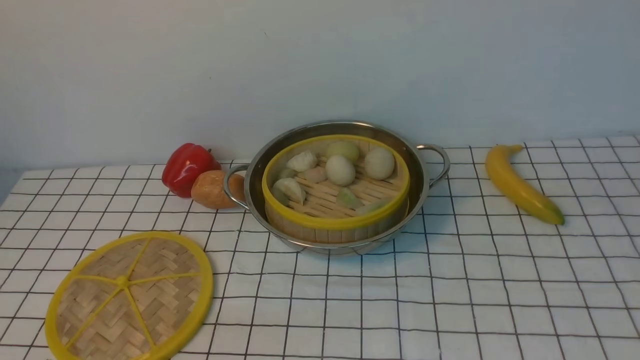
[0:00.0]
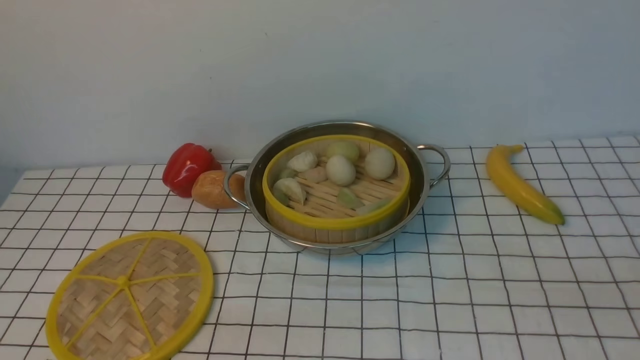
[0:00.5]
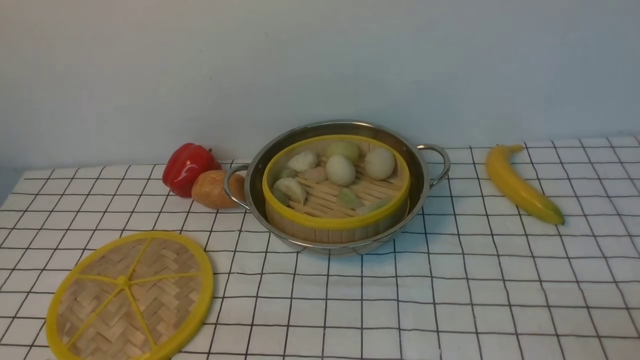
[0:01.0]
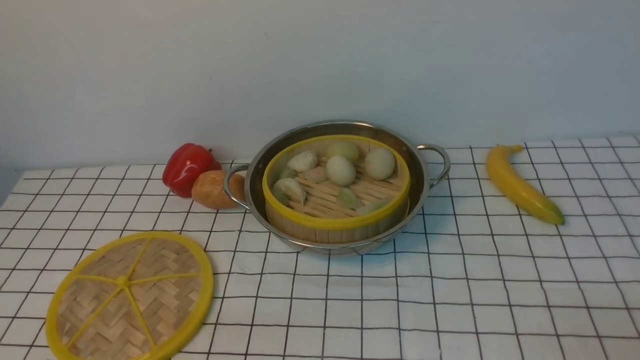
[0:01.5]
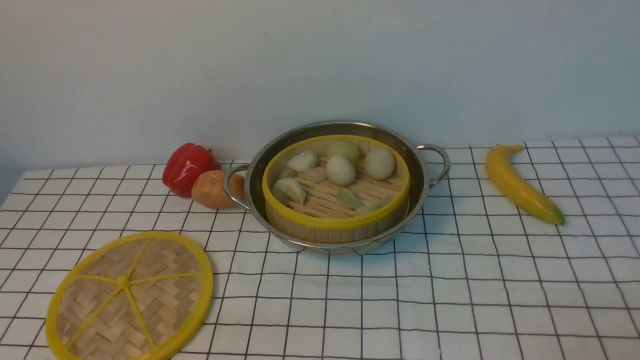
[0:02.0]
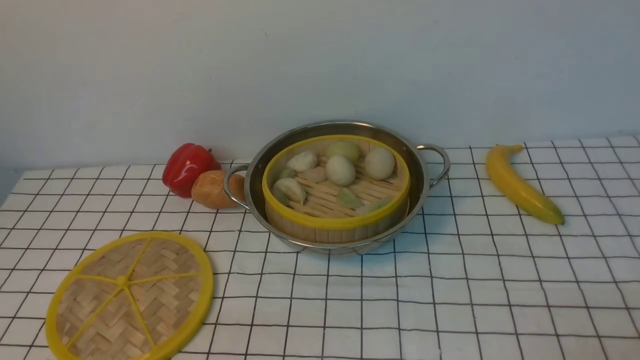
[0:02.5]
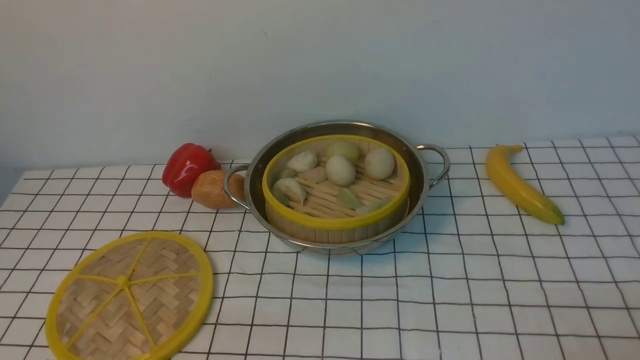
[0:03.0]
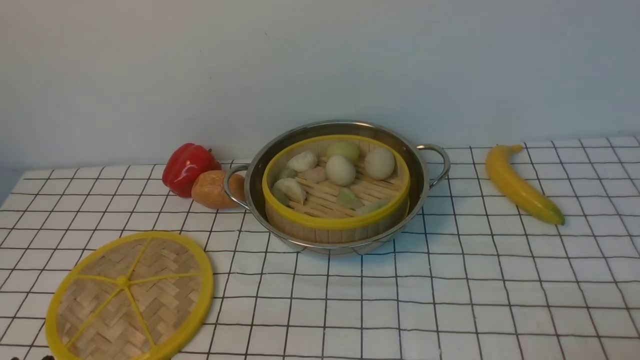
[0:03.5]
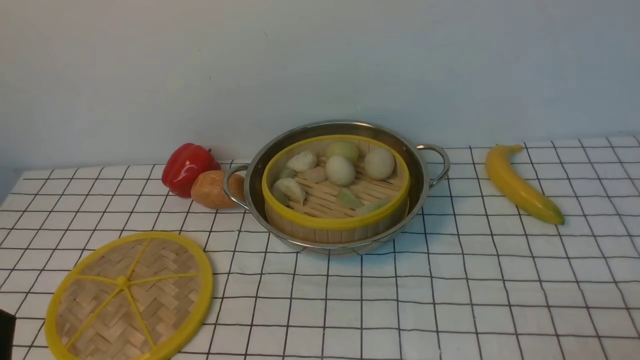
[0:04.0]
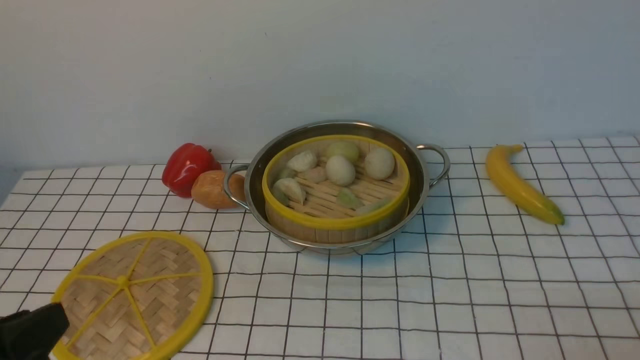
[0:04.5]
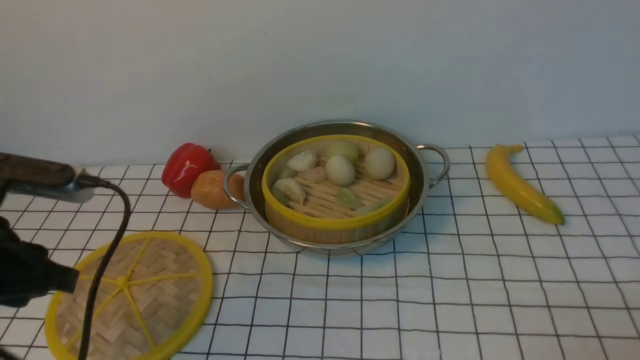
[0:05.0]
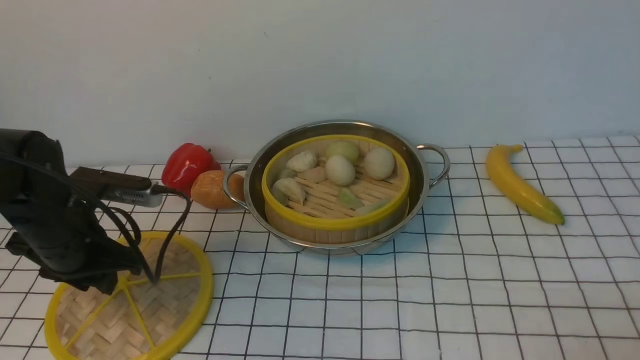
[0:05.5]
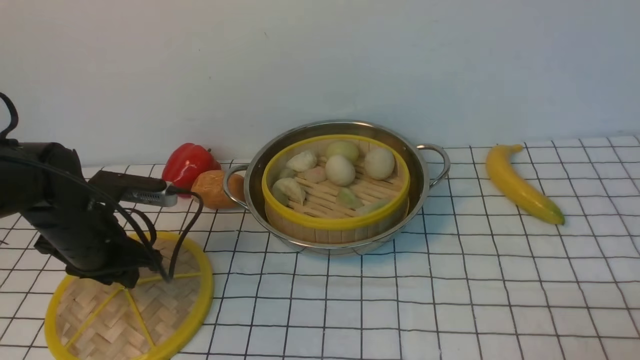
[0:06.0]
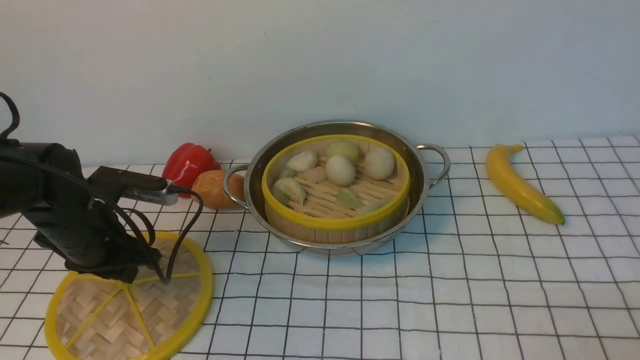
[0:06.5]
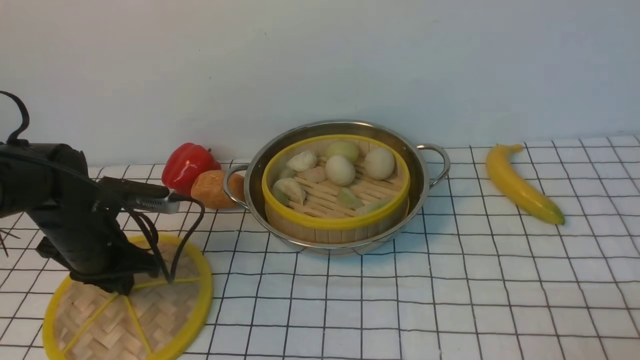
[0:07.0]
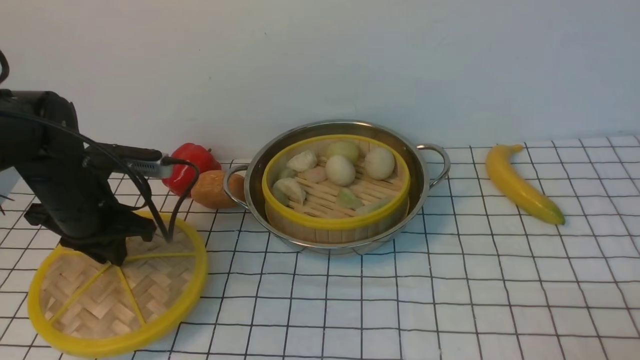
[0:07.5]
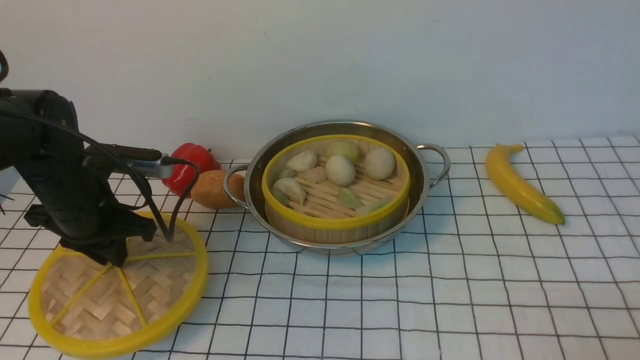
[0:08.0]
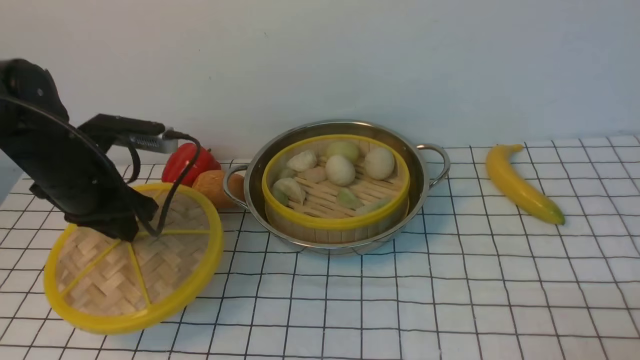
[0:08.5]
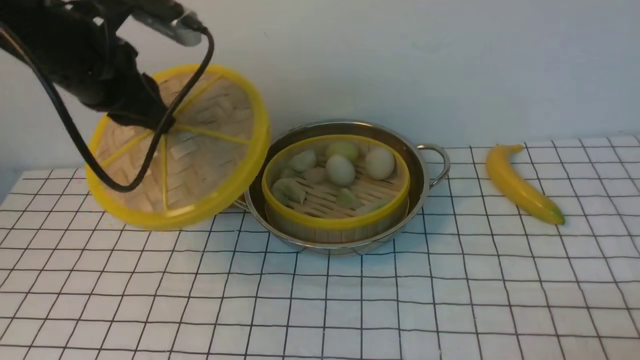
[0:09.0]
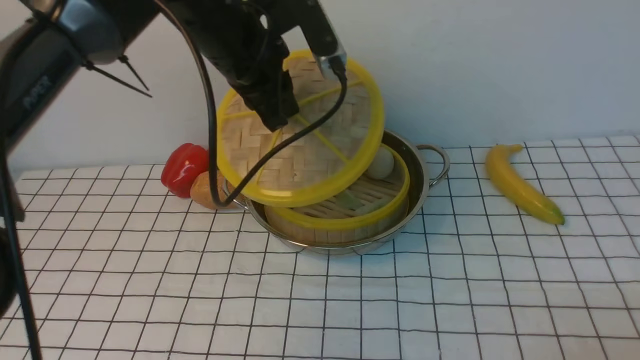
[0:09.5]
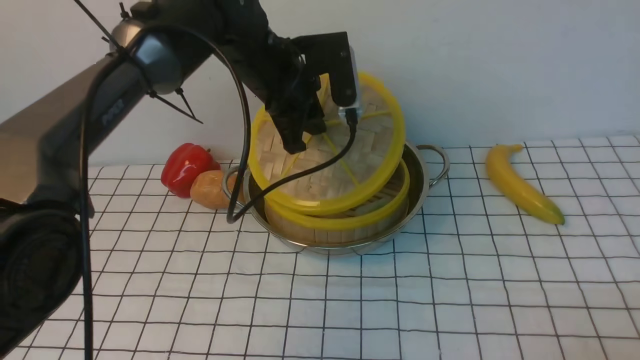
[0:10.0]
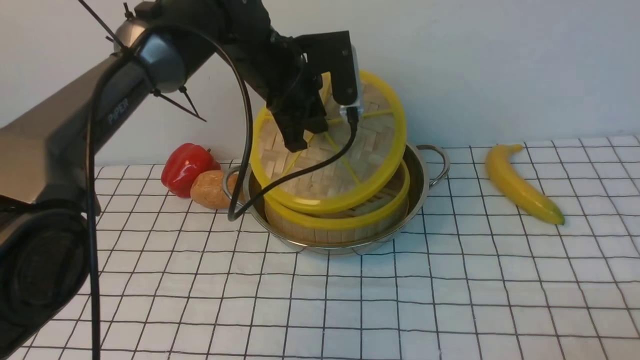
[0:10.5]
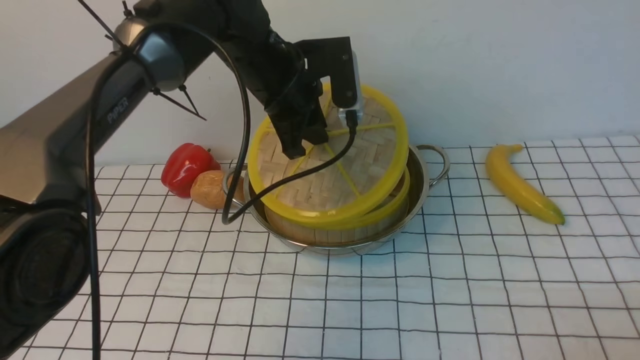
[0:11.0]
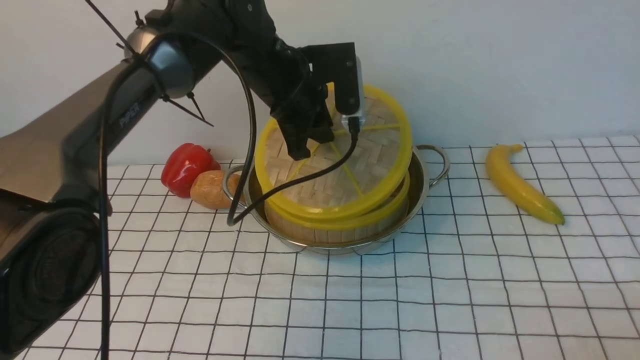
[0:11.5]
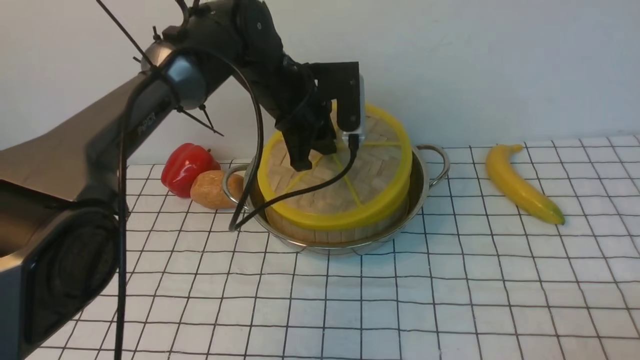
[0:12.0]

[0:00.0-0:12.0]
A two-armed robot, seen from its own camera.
Task of the whole recording: place the steamer in the pot on the white tablecloth, and put the lid on the steamer.
Step, 0:00.0 to 0:07.0: use the left arm to lift the lid of the steamer.
0:04.0 to 0:06.0: The left gripper heads forward, covering some 25 cm.
0:06.0 to 0:08.0: The left gripper closes.
0:08.0 to 0:10.0: The left gripper shifts some 25 cm to the right, forward and upward.
0:10.0 to 0:12.0: The grippers make only small movements.

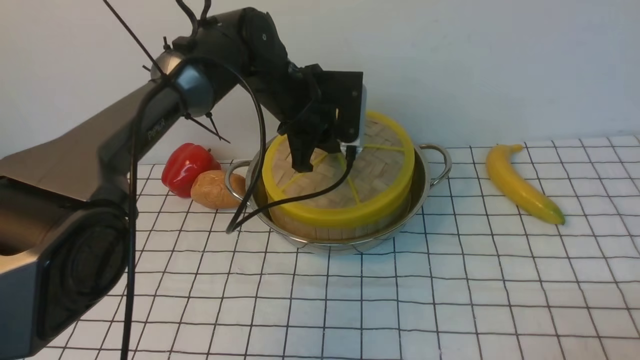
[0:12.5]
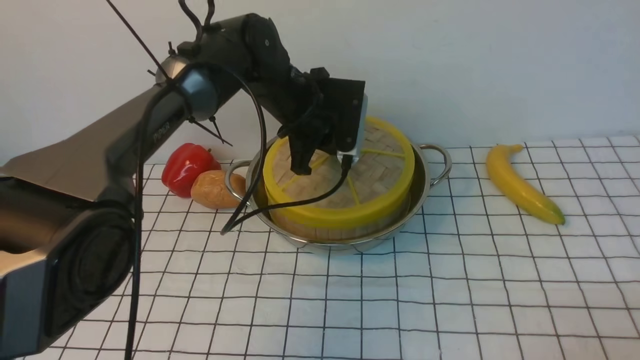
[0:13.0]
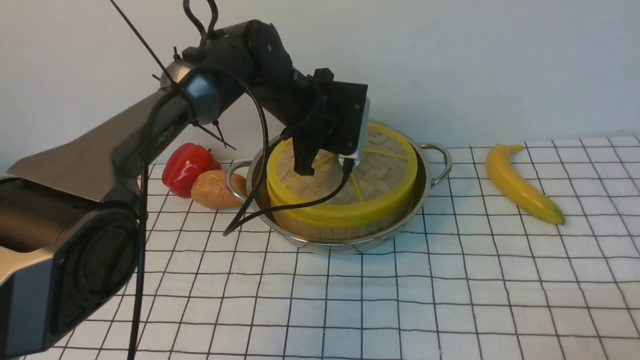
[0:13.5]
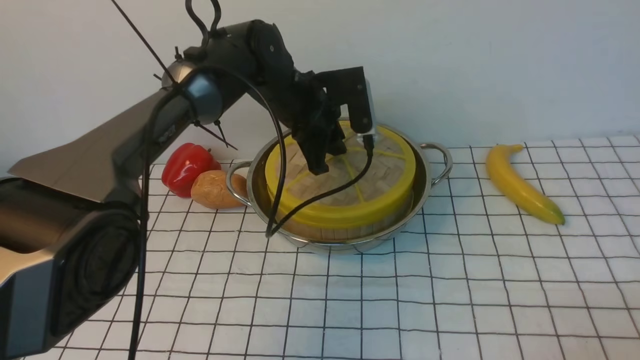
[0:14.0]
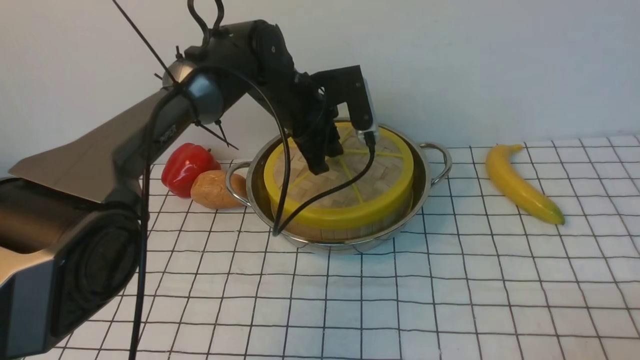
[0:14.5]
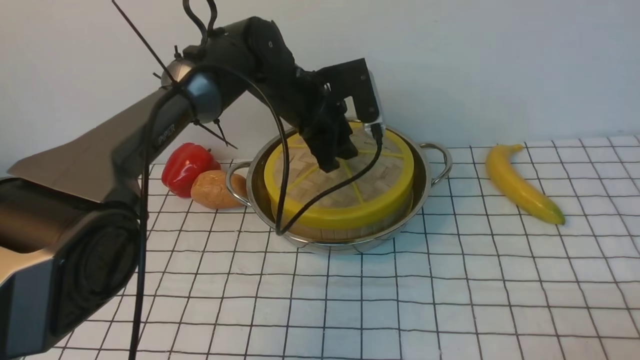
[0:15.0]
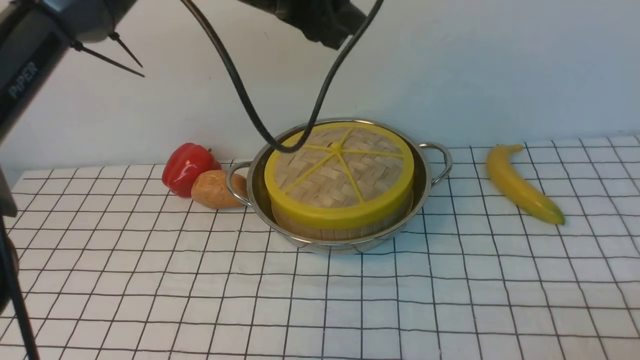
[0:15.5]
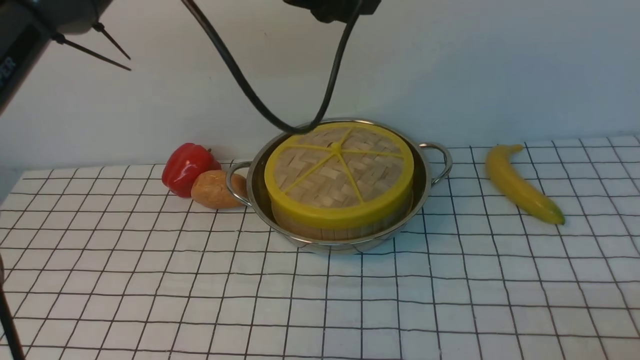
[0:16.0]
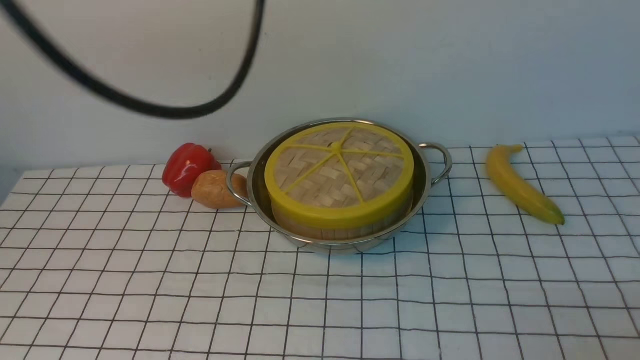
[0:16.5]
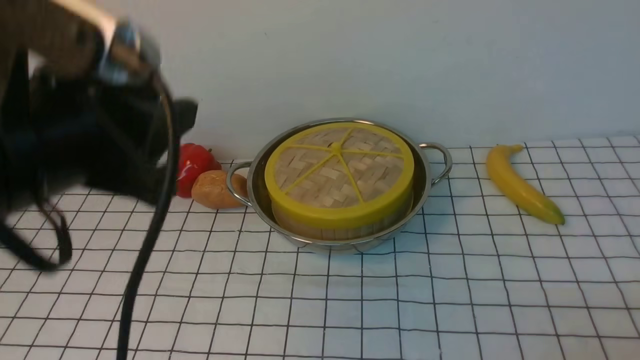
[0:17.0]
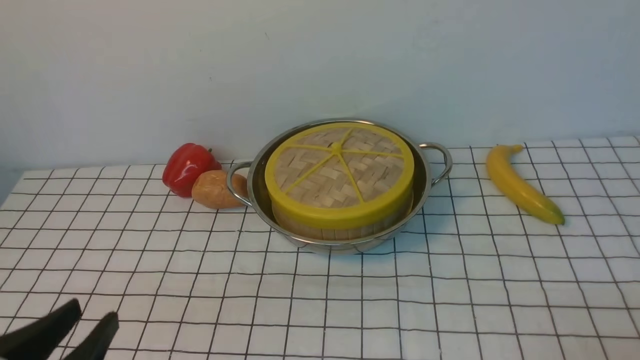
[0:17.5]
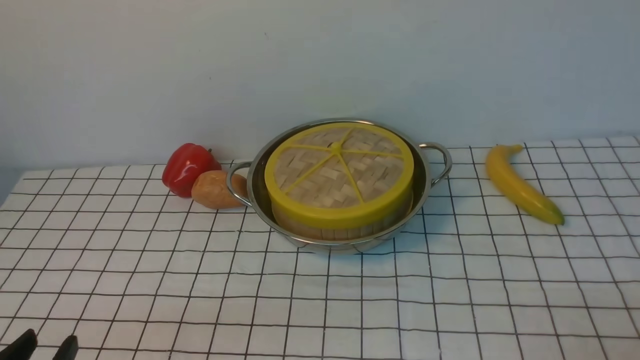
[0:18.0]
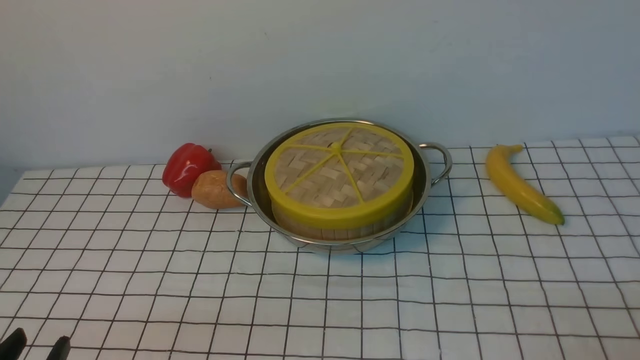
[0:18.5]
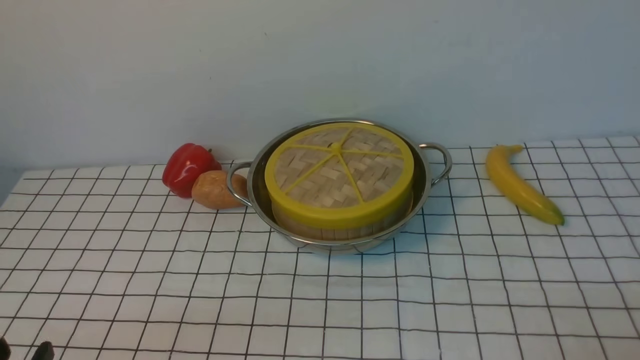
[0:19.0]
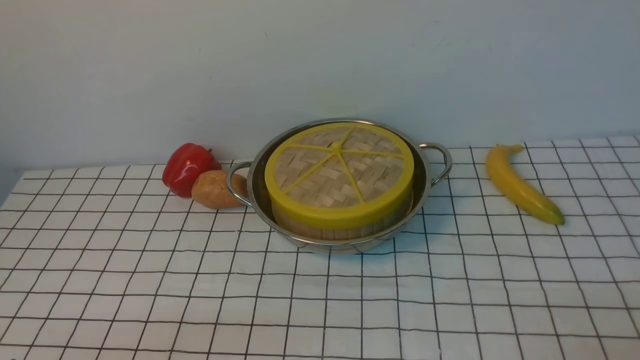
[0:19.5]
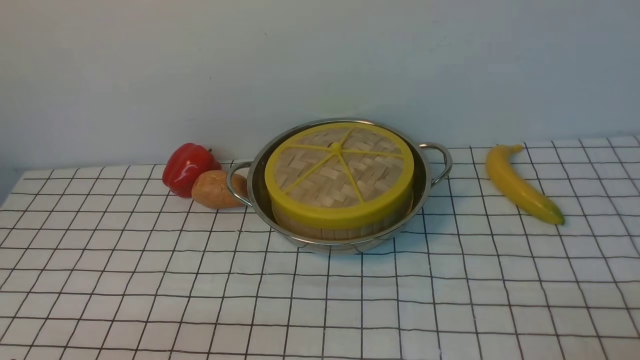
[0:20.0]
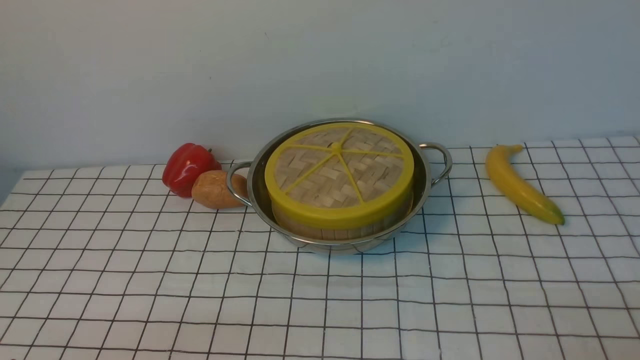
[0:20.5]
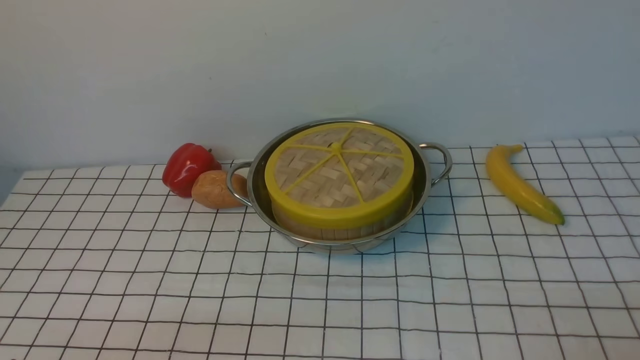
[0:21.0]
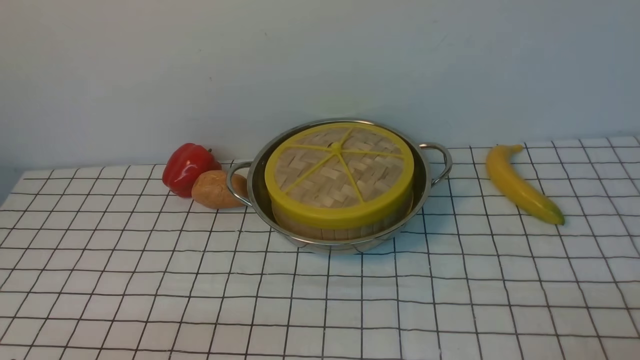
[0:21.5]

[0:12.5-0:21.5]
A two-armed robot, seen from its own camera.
Task of the whole recording: place the steamer in the pot on the white tablecloth, and put the lid on the steamer.
Step, 0:12.5 to 0:15.0: use the left arm to place the steamer lid on the steamer.
0:12.5 to 0:14.5: The grippers make only small movements.
0:14.5 to 0:17.0: The left gripper heads backward, upward and to the left, covering roughly 35 cm, and opens its fingers.
0:17.0 to 0:19.5: The left gripper moves downward and backward, roughly 30 cm.
0:19.5 to 0:21.5: Both grippers stay about where they are.
